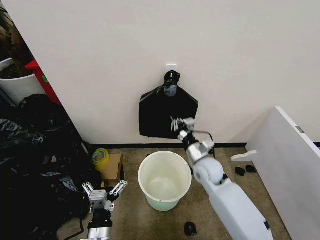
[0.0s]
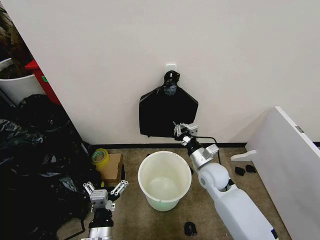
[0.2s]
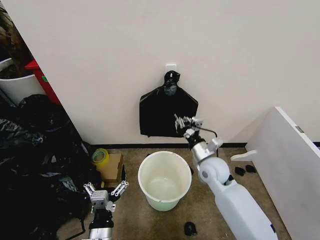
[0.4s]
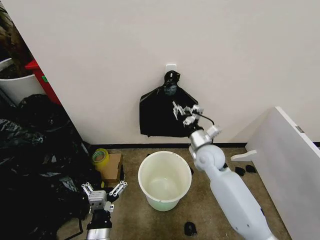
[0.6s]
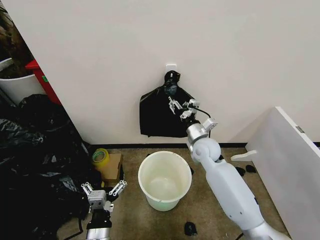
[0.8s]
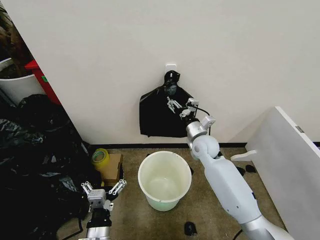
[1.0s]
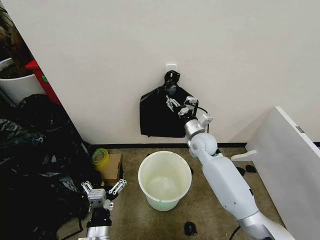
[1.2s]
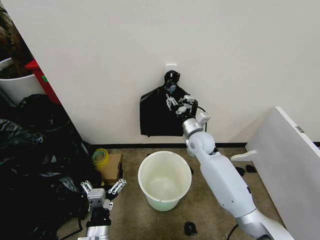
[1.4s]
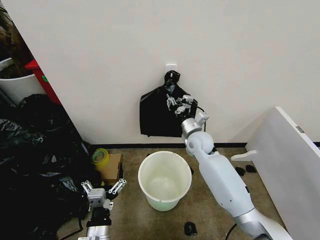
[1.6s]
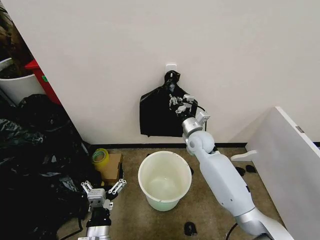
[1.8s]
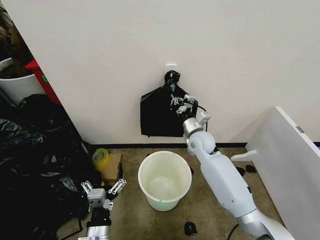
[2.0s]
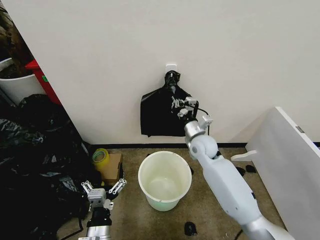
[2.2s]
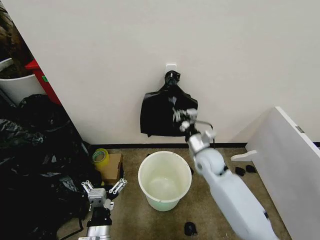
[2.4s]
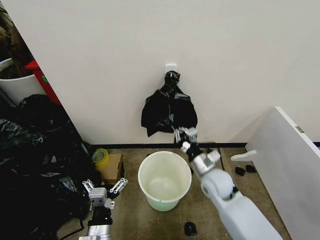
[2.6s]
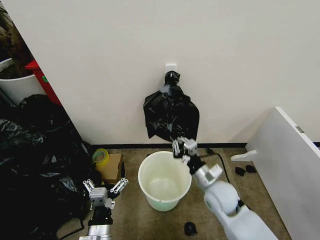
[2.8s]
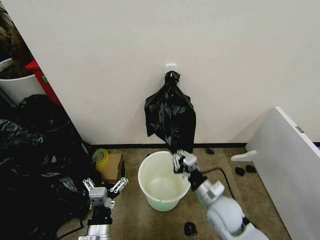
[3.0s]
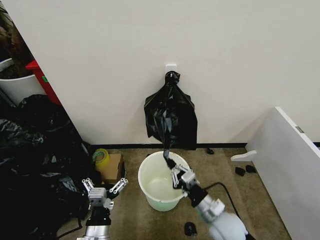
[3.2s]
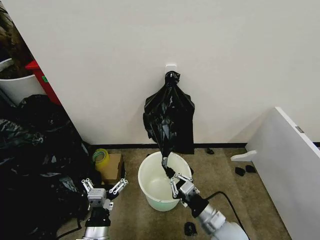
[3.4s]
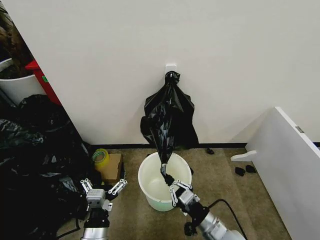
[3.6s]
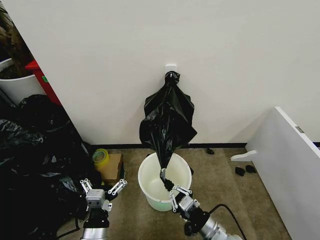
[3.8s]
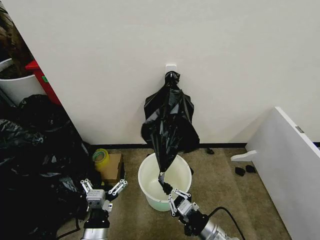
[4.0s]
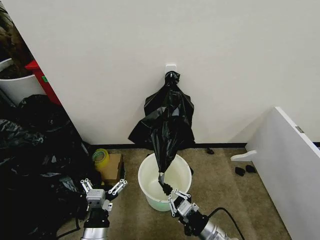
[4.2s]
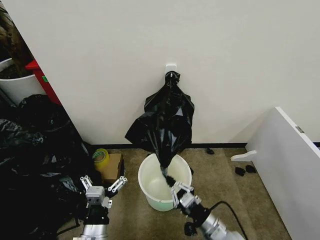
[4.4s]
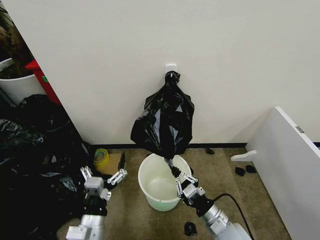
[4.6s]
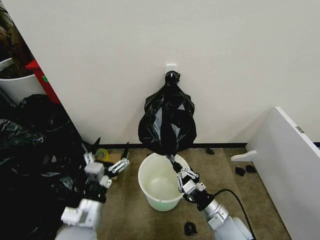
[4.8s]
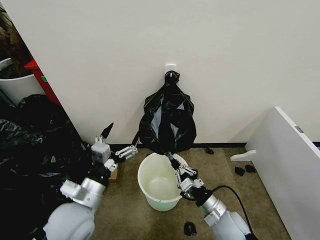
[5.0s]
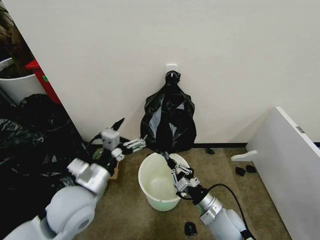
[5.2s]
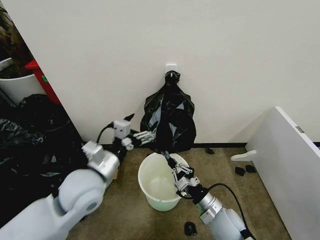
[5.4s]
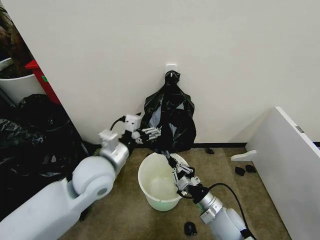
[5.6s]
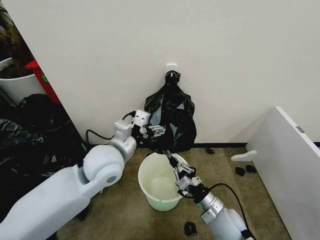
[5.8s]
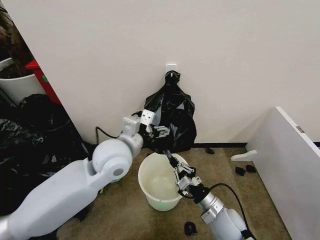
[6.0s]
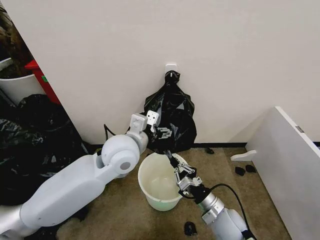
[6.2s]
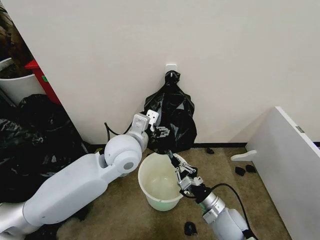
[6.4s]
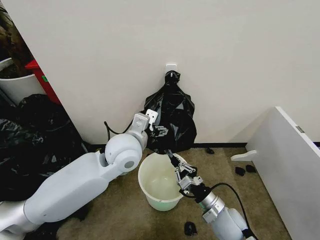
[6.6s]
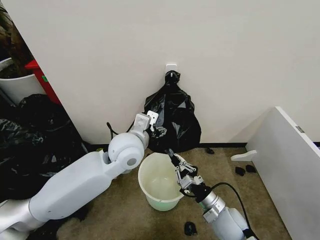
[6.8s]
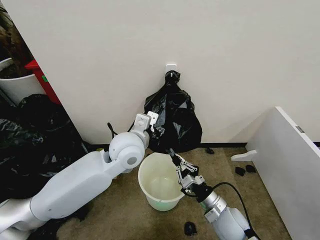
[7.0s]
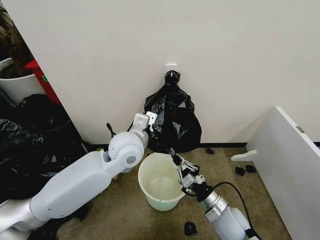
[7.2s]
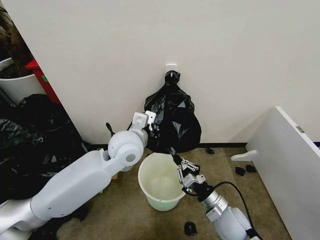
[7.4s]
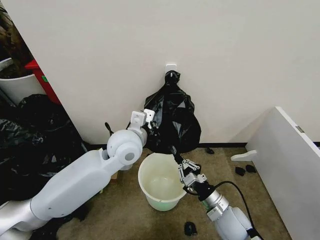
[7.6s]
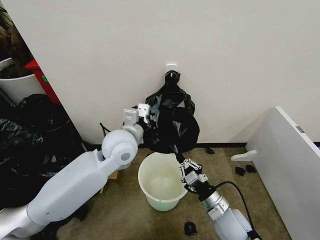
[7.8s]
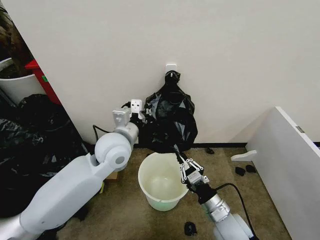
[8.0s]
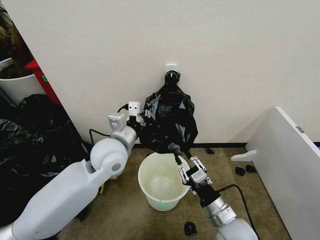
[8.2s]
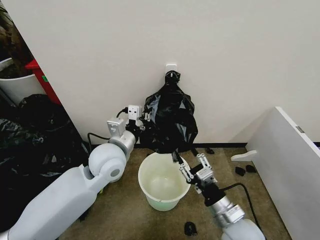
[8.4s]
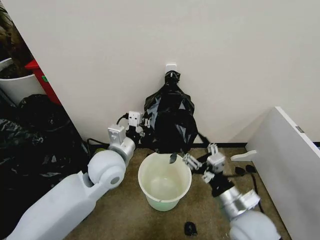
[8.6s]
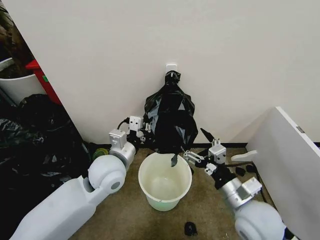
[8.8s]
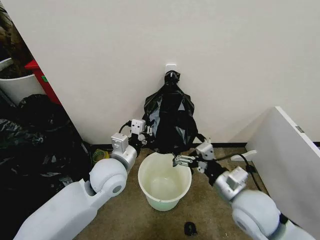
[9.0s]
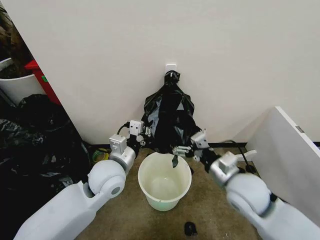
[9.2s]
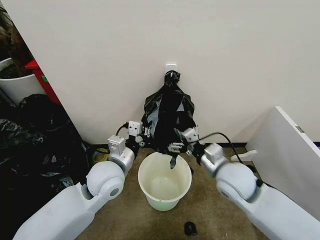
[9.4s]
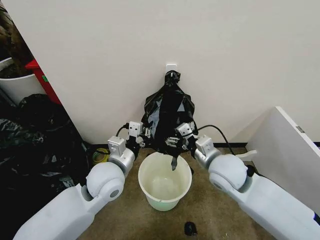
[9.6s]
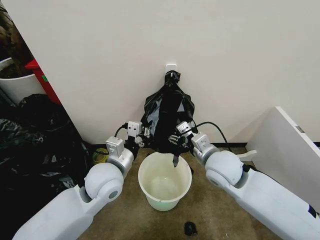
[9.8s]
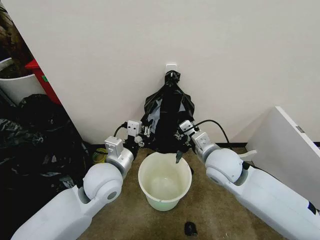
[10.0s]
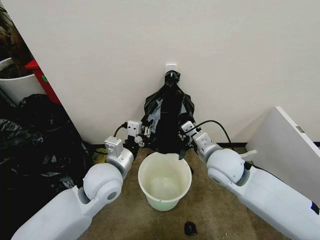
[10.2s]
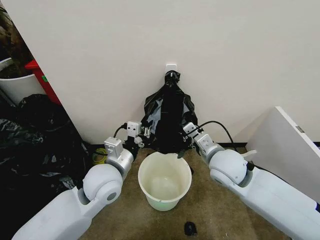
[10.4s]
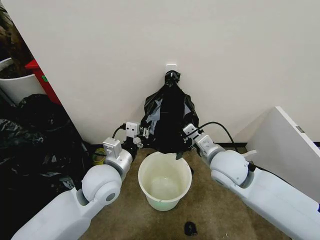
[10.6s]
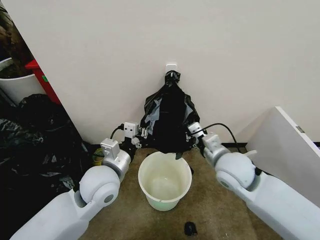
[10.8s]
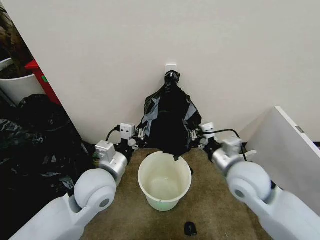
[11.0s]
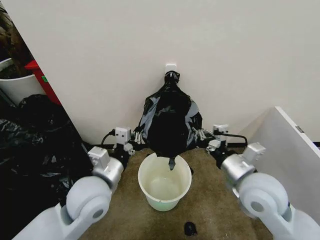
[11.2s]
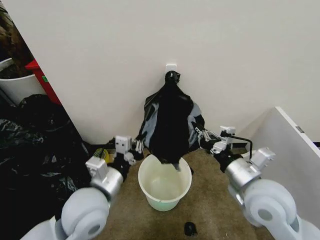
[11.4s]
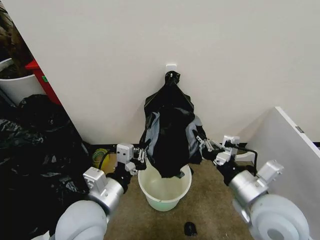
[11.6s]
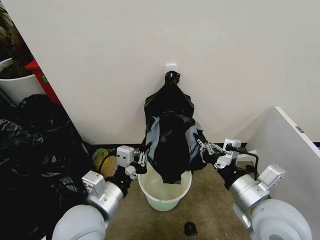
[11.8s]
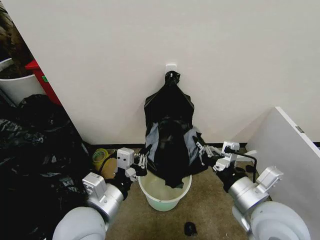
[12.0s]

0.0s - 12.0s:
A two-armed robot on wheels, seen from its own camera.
Task of the whole recording: Place the garbage bag over the trash bin.
0.0s - 1.6s: The right gripper travels forward by some 10 cm, and opens, then closes once more.
1.6s - 3.0s: The right gripper shifts about 25 cm backward.
3.0s - 4.4s: The right gripper travels backward by approximately 5 cm.
4.4s - 6.0s: The left gripper shifts approximately 25 cm forward and upward, while the right gripper is displaced forward by roughly 5 cm.
6.0s - 7.6s: The left gripper is displaced forward by approximately 5 cm, and closes.
7.6s - 9.0s: The right gripper travels upward by about 15 cm, and opens. The left gripper is displaced backward and downward by approximately 10 cm.
9.0s - 10.4s: The right gripper is displaced forward by approximately 10 cm, and closes up.
10.4s - 12.0s: Both grippers move backward, some 15 cm.

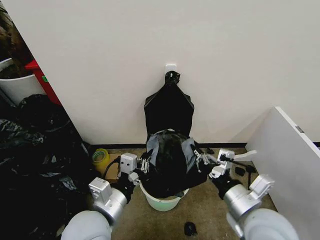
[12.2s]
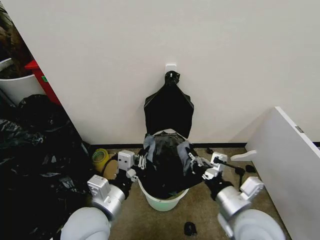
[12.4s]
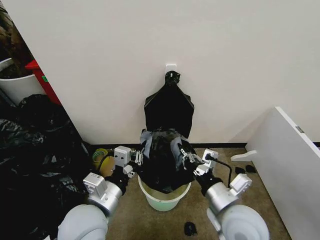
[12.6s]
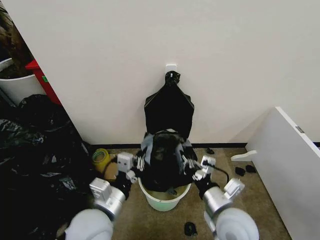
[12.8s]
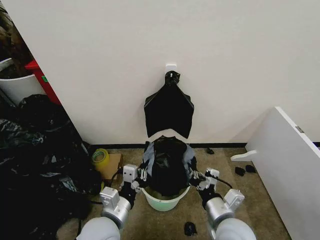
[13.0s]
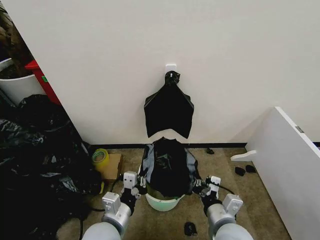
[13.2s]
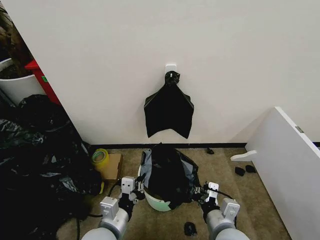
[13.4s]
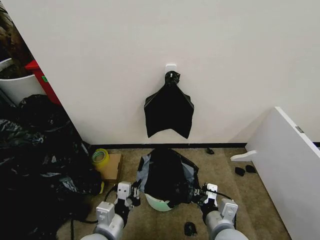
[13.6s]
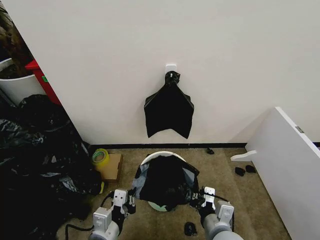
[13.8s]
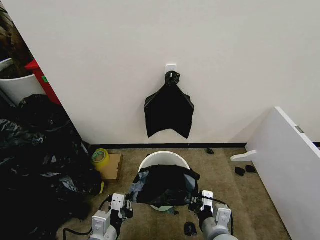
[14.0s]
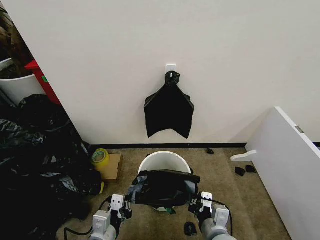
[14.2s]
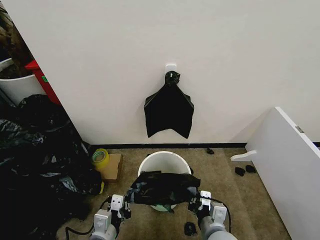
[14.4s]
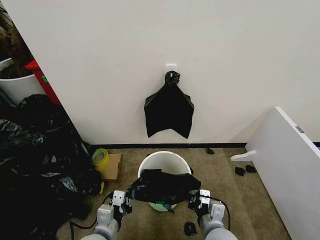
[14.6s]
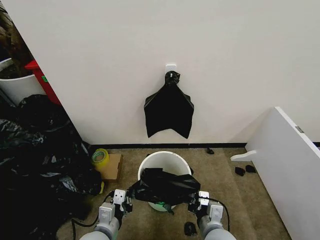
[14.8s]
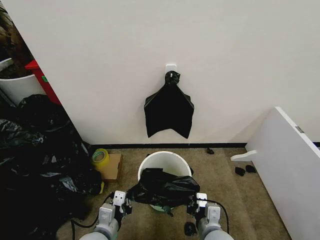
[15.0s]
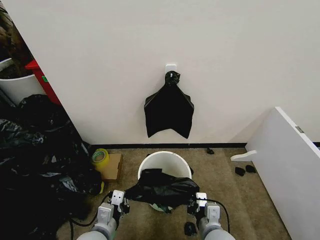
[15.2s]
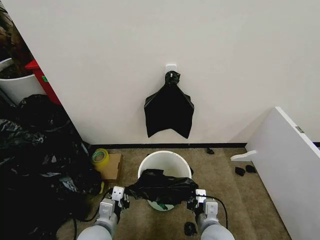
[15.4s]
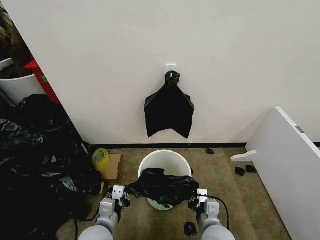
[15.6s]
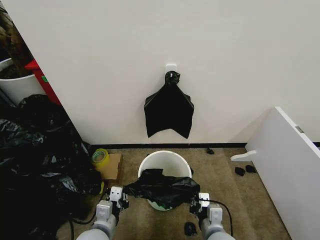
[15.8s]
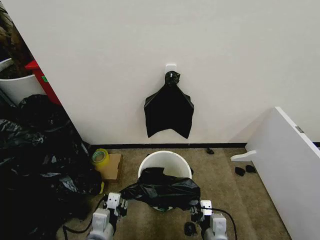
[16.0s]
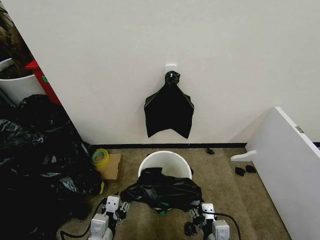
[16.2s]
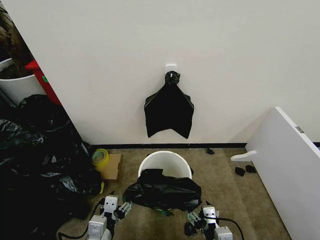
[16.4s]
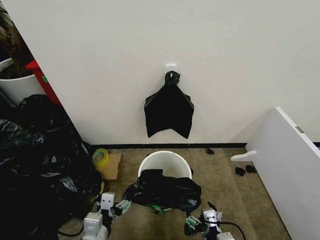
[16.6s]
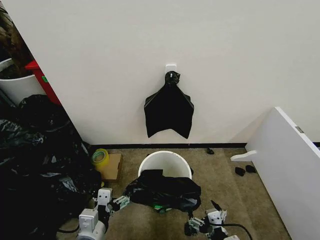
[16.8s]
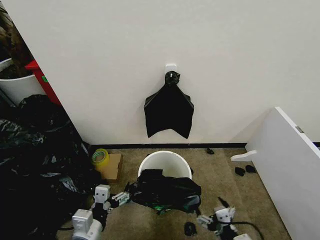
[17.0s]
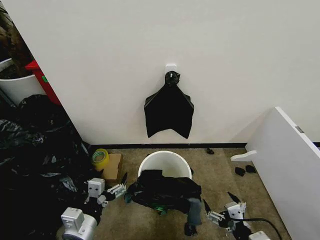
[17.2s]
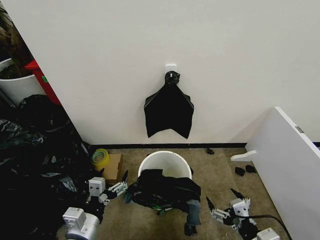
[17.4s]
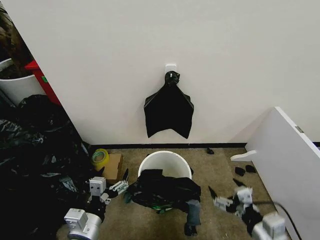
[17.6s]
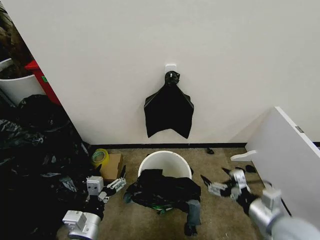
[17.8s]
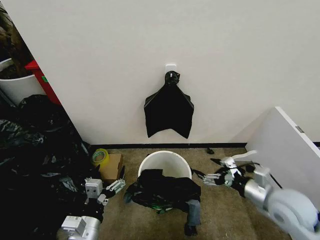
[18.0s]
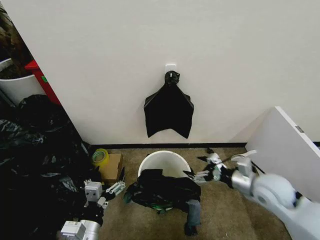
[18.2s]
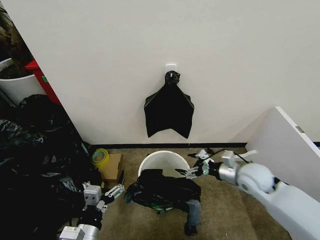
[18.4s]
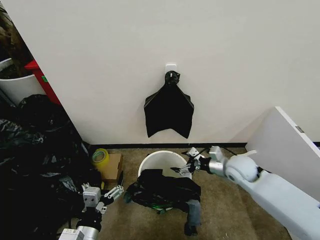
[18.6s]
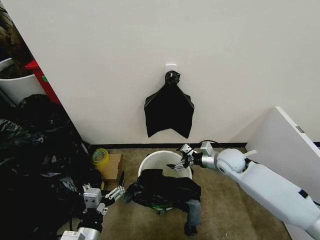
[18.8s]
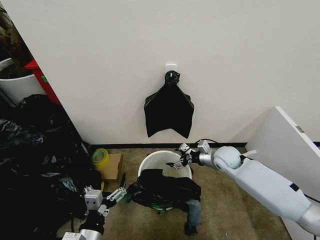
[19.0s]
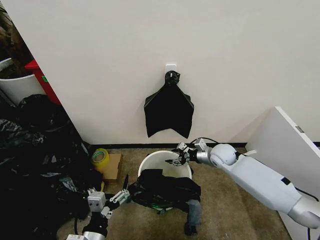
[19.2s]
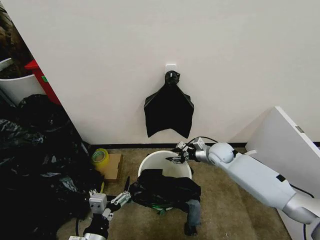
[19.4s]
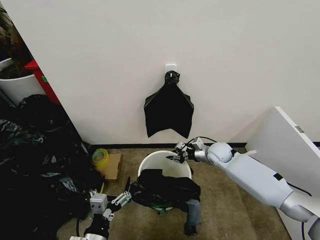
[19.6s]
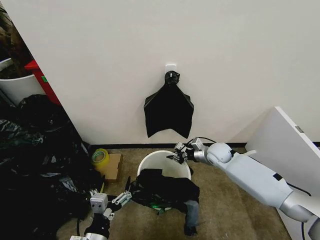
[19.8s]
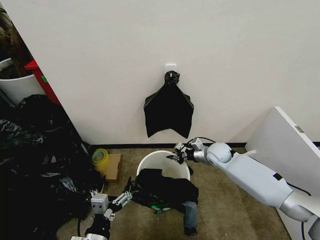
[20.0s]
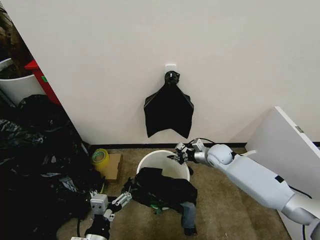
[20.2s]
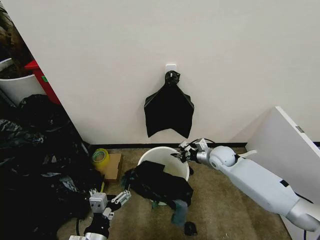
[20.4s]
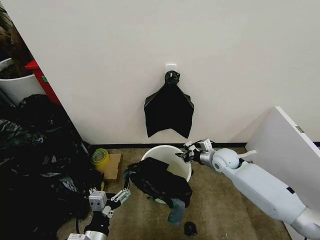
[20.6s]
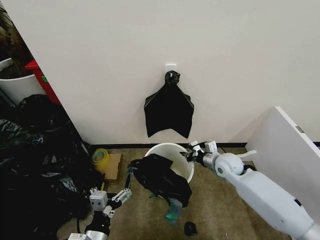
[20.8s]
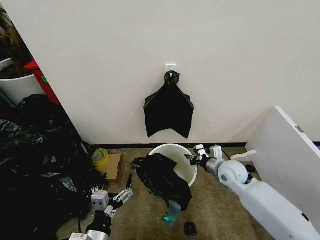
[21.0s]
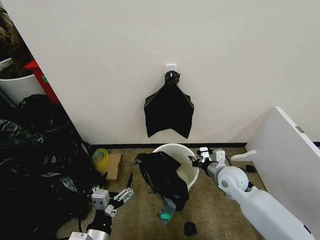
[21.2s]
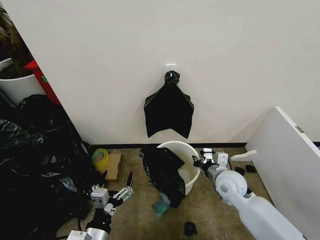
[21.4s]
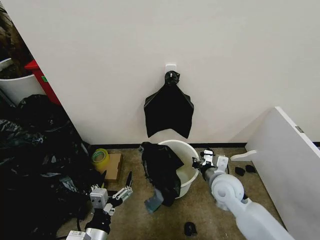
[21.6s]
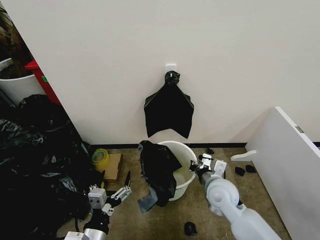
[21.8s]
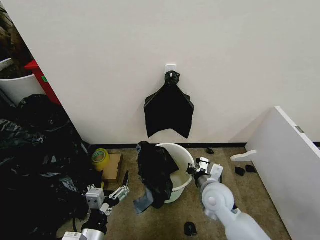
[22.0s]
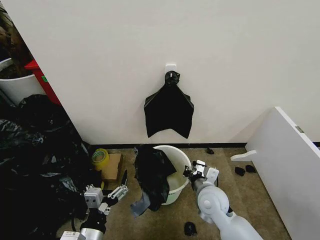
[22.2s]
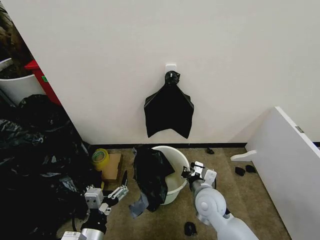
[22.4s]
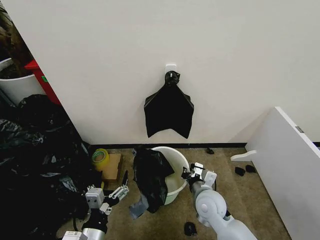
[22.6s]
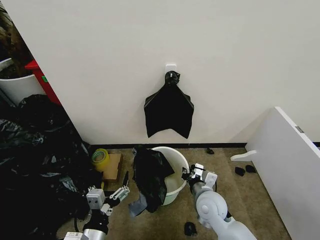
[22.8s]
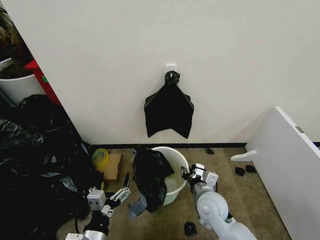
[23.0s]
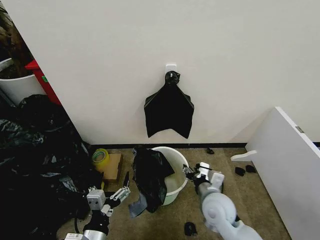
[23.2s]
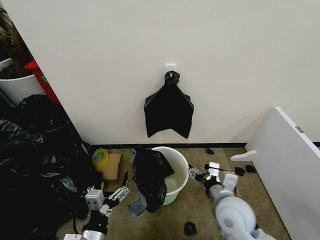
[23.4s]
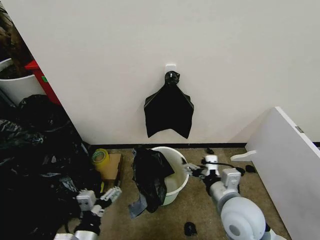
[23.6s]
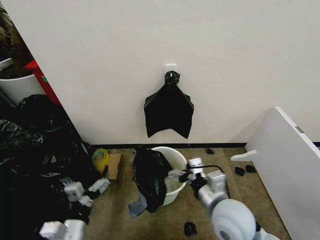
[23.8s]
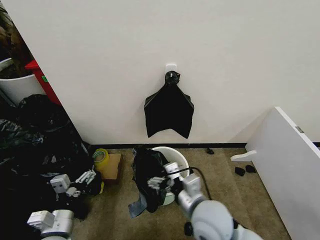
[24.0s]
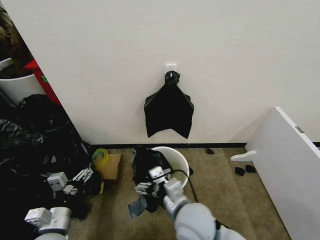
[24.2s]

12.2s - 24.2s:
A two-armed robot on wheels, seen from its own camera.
Task of the whole recording: Place the garbage bag over the trash bin.
12.2s - 13.8s: The right gripper heads downward and to the left, covering roughly 15 cm; the left gripper is displaced downward by approximately 10 cm.
13.8s - 15.2s: The left gripper ends up approximately 5 cm from where it was.
15.2s - 16.6s: The left gripper opens its fingers. The right gripper is displaced backward by some 10 cm, and opens up.
16.6s - 18.2s: The right gripper moves forward, to the right and upward, some 25 cm.
18.2s - 19.8s: The right gripper heads forward, downward and to the left, covering roughly 20 cm, and closes its fingers.
19.8s - 21.2s: The right gripper shifts some 10 cm backward.
21.2s - 22.6s: The right gripper is displaced to the left and backward by some 10 cm.
22.6s - 24.2s: The right gripper moves upward, to the left and backward, about 15 cm, and opens its fingers. Meanwhile the left gripper is displaced to the left and forward by about 10 cm.
